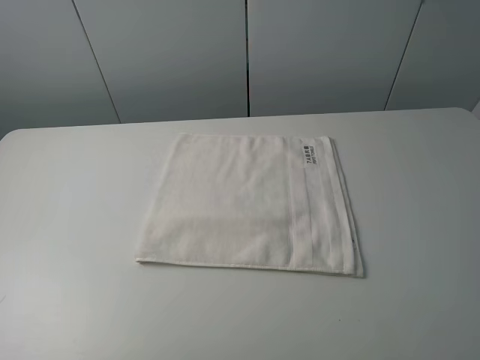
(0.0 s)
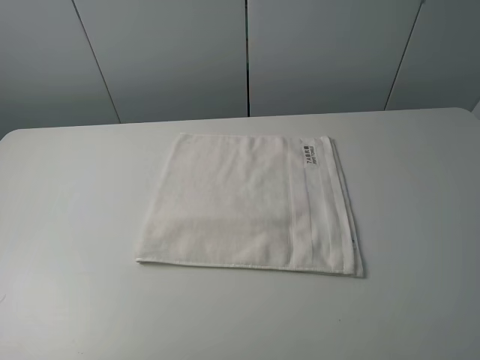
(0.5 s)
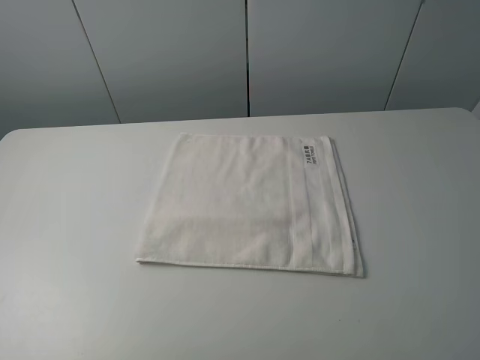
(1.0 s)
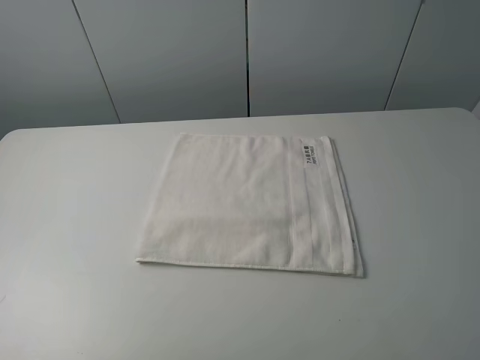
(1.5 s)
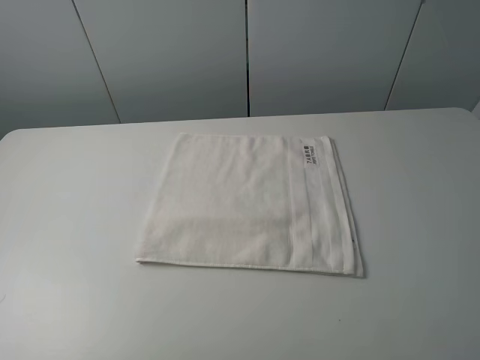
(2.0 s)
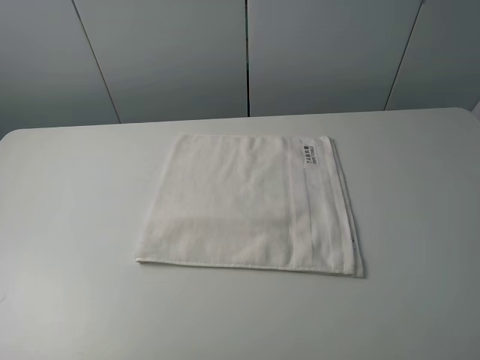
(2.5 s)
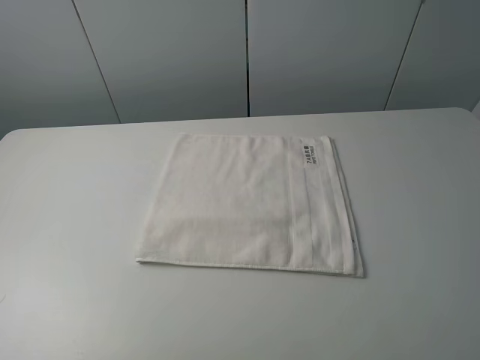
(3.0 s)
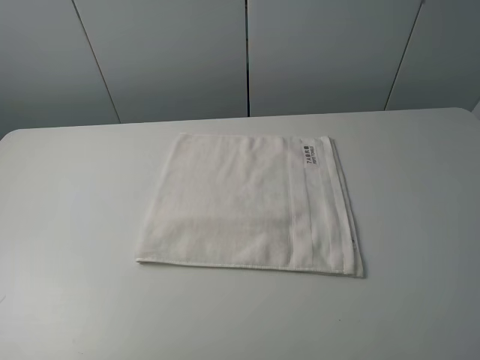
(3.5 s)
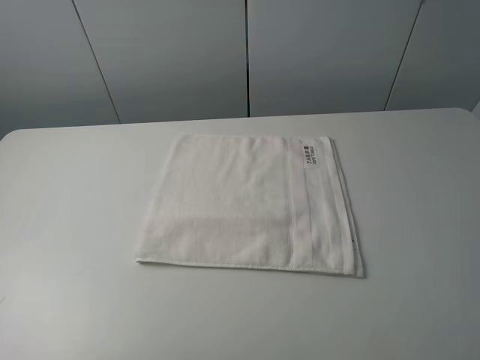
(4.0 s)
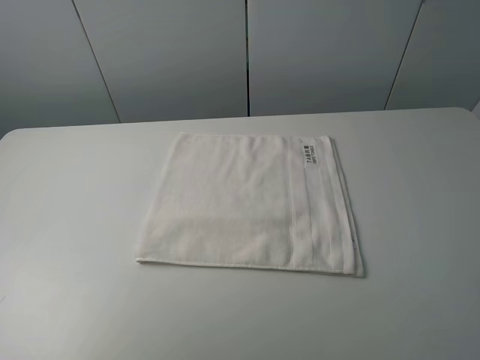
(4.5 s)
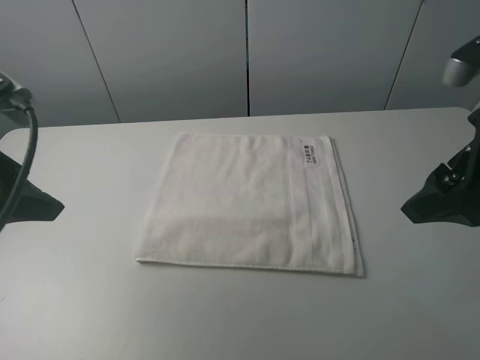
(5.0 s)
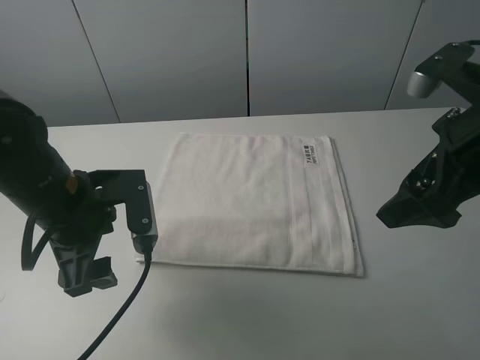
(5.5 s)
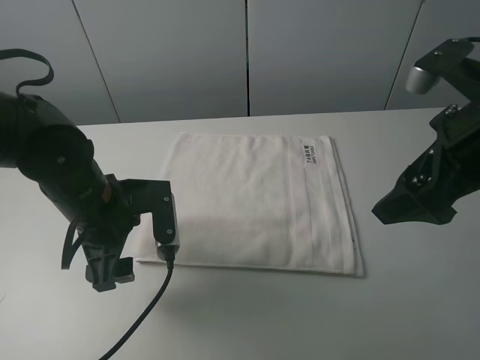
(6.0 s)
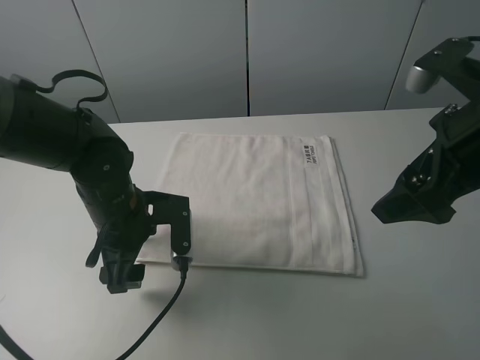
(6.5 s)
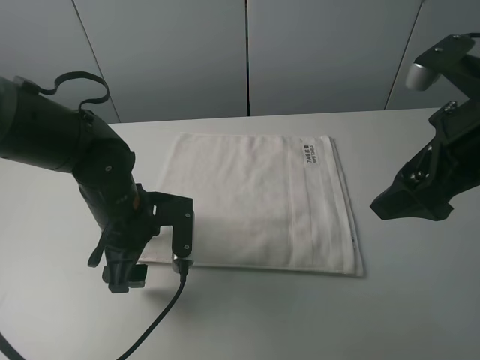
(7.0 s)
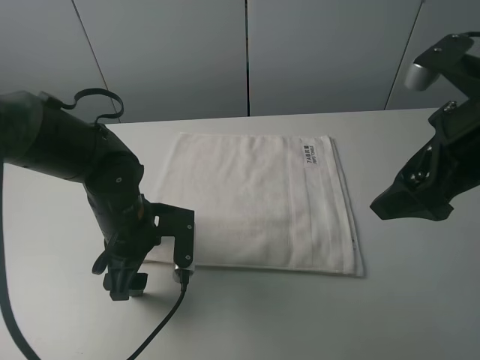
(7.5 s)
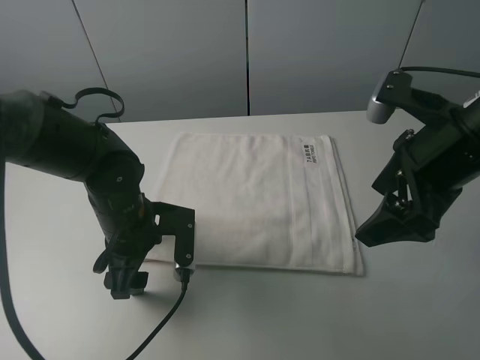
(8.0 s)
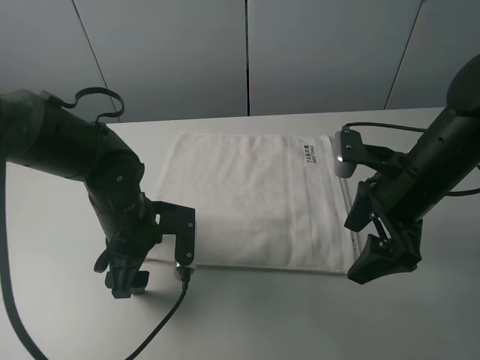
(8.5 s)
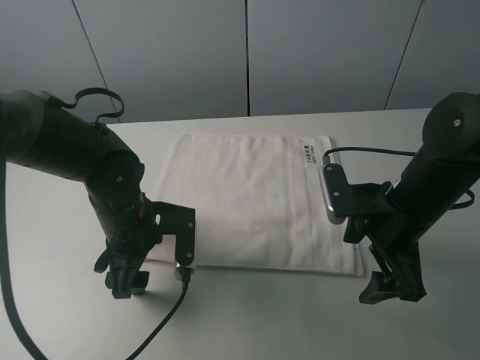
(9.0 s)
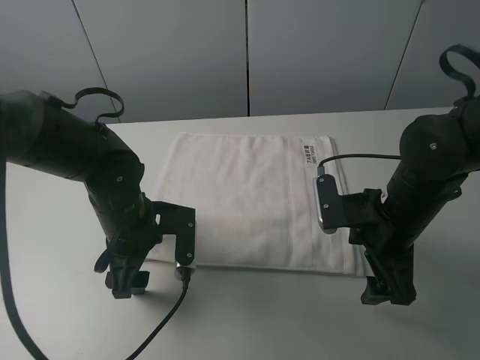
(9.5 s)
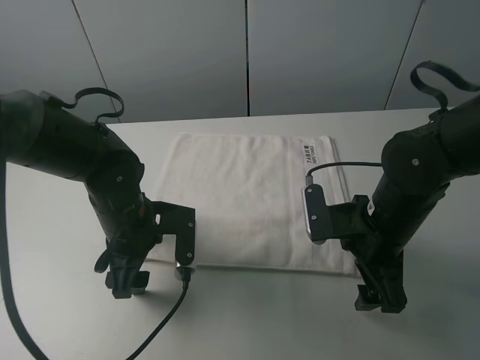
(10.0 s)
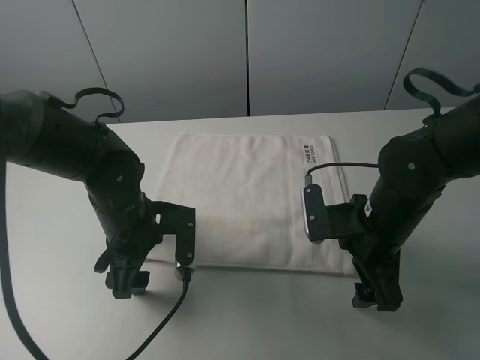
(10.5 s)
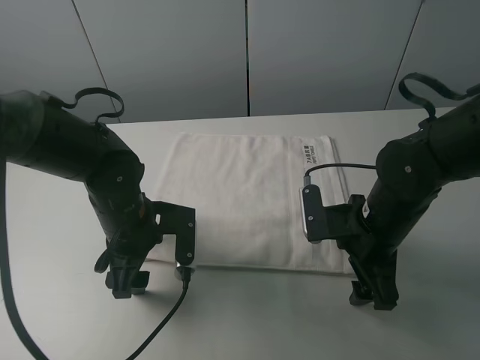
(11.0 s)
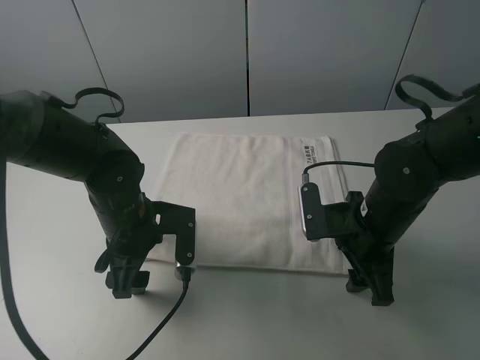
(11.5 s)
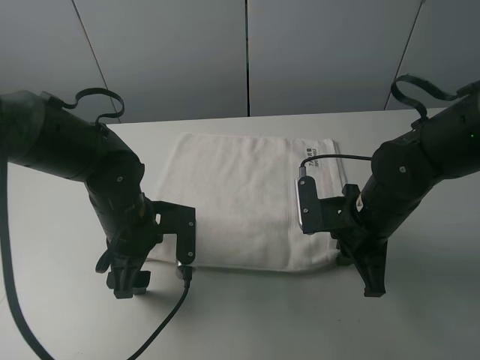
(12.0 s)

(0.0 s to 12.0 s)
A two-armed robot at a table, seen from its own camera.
Task of the whole recording: fold the towels on the table.
Step, 0.0 s - 12.0 s: Grasp the white towel with the right gripper.
0.0 s - 2.0 s: Both grippers stay put.
4.0 s - 6.0 s: The right gripper goes about 20 cm forward. The left gripper moves forward, to the right and downward, roughly 30 cm.
6.0 s - 8.0 s: The left gripper ends up some 5 cm from where it was.
8.0 s - 10.0 s: The right gripper goes roughly 10 cm downward.
10.0 s - 12.0 s: The right gripper closes.

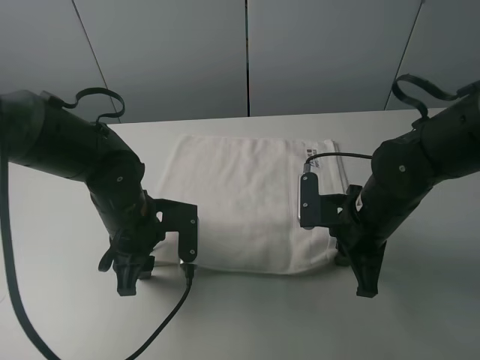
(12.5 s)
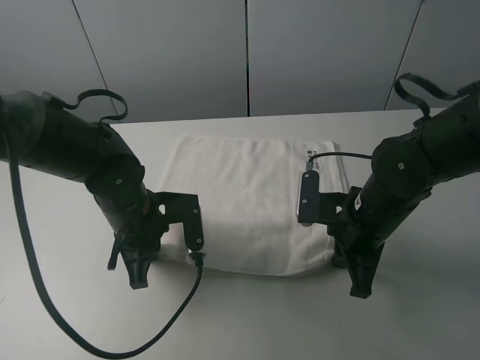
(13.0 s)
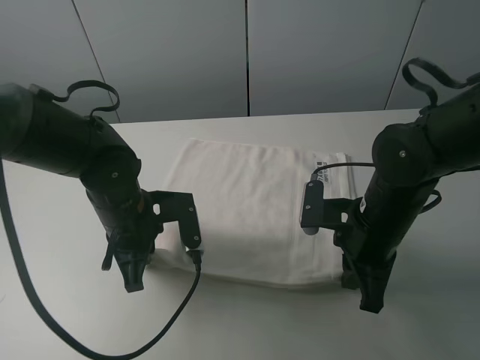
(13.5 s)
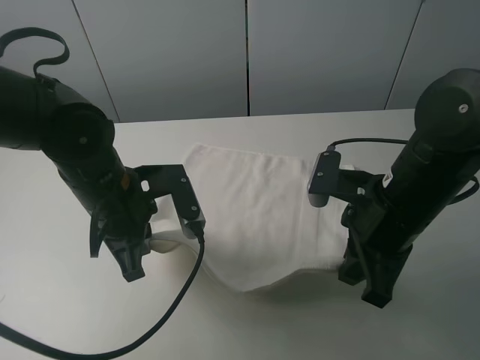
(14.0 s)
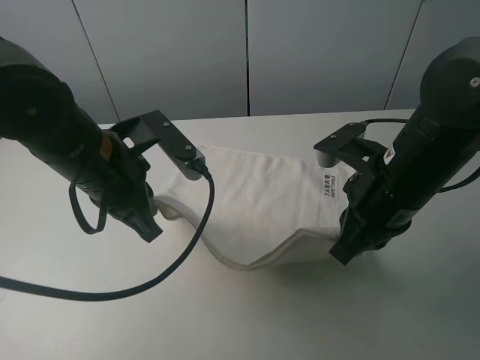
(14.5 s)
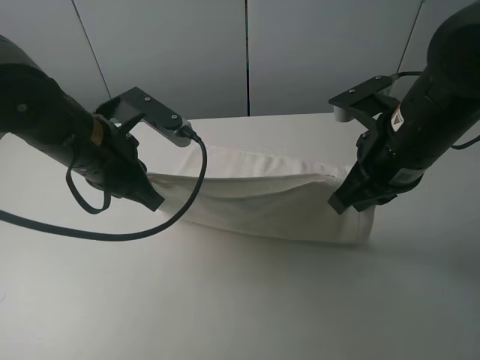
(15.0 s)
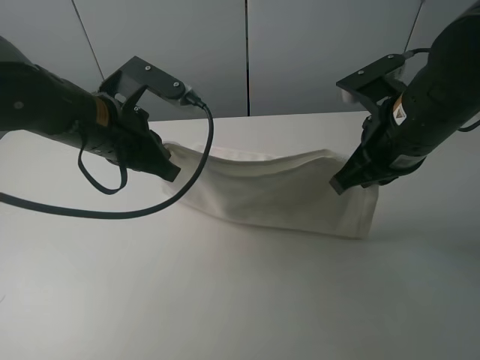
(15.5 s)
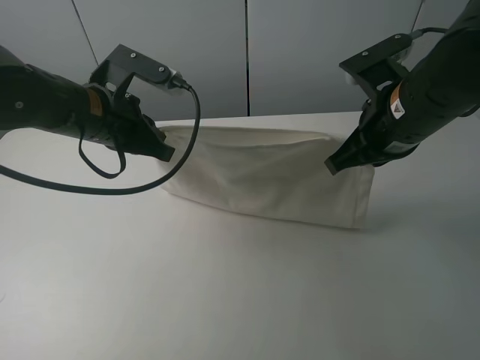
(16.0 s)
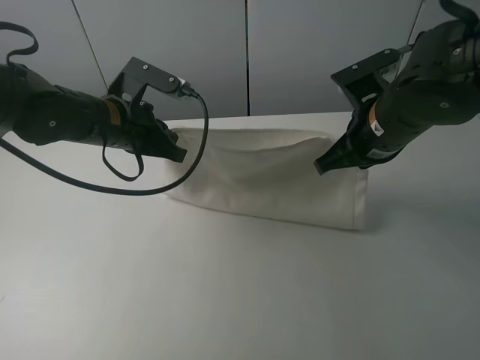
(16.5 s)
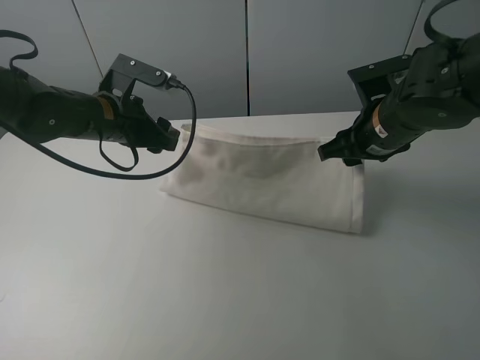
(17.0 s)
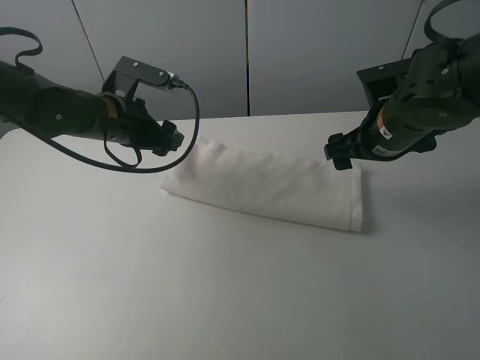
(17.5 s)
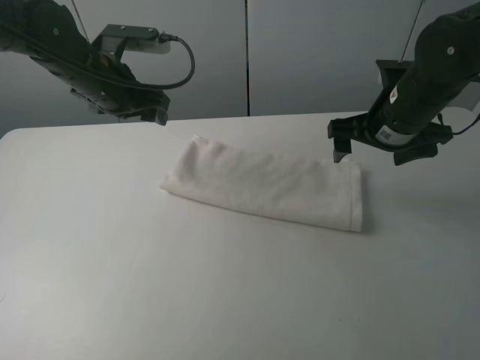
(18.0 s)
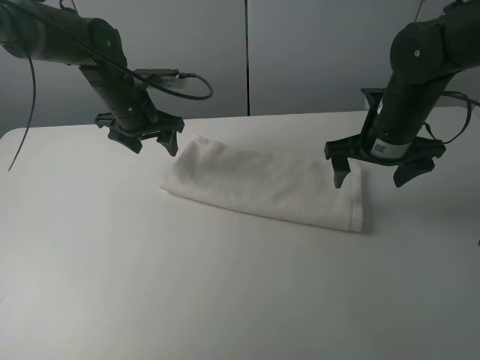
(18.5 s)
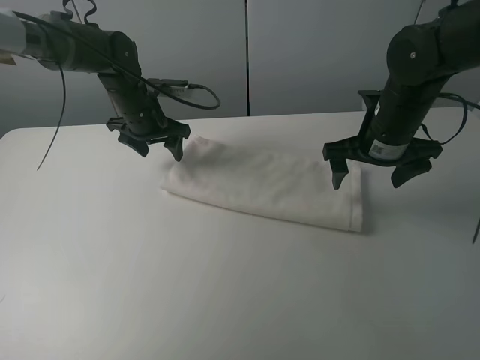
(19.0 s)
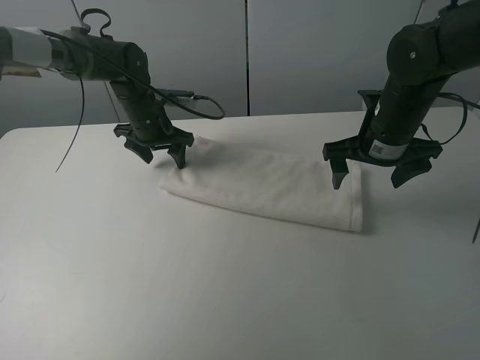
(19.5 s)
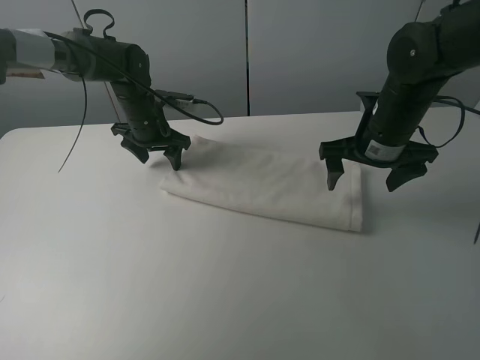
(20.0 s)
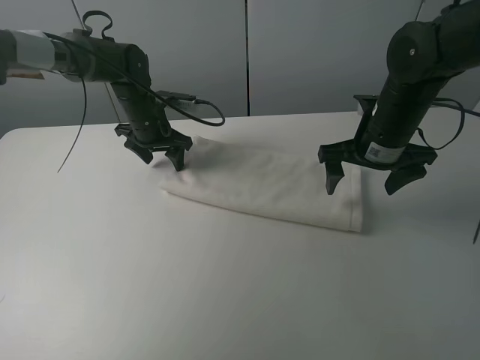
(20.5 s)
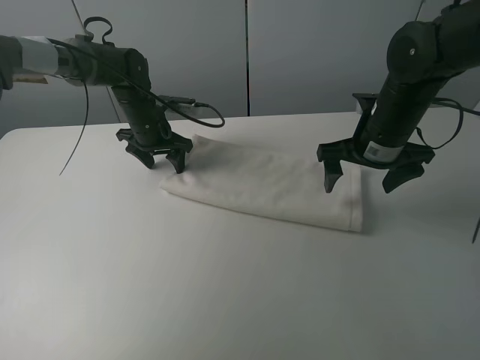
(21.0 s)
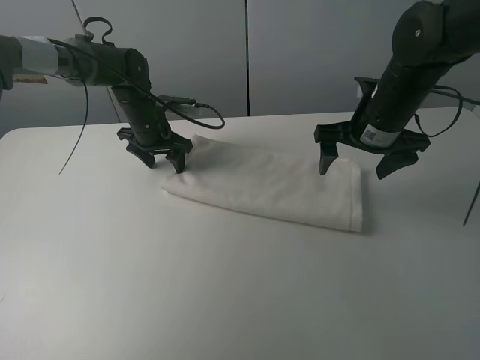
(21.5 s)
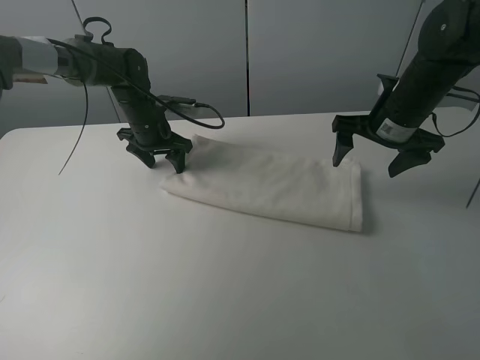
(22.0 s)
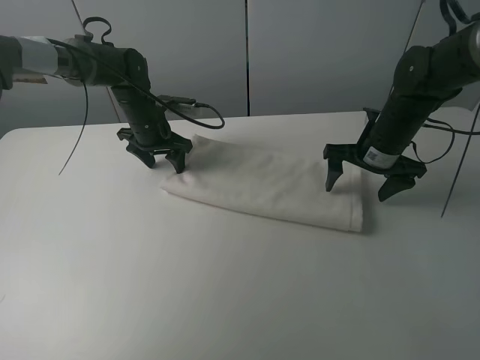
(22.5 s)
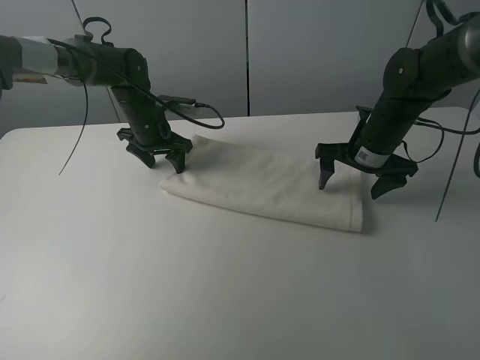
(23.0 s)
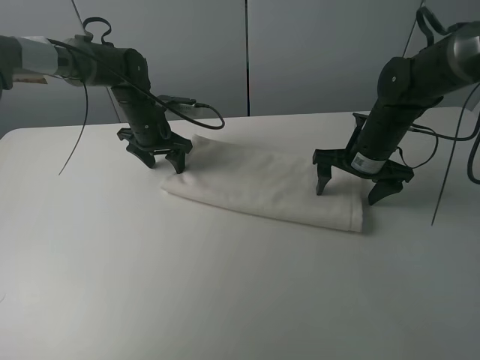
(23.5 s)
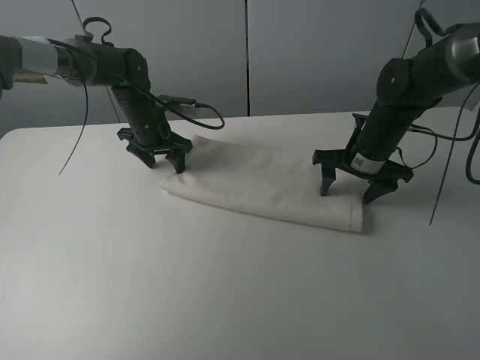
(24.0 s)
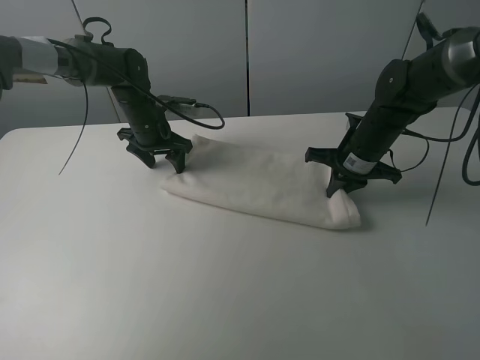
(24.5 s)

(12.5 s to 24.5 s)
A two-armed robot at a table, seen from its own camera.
Task of the whole recording: fold the towels on the table.
Step, 13.0 s - 17.0 s: Fold the white towel upwards with the right gripper.
Step, 17.5 s - 20.5 s: Press on the white towel with the left gripper.
12.5 s - 14.5 s: The two grippers go approximately 10 cm upward. The left gripper closes.
14.5 s - 16.5 s: The two grippers go about 10 cm forward.
16.5 s - 18.5 s: The left gripper heads forward, covering roughly 10 cm, and opens up. Meanwhile the right gripper moves roughly 5 cm, and opens up.
18.5 s - 20.5 s: The left gripper travels downward by approximately 5 cm.
20.5 s - 22.5 s: The right gripper moves some 5 cm.
22.5 s - 24.5 s: The right gripper closes its fingers.

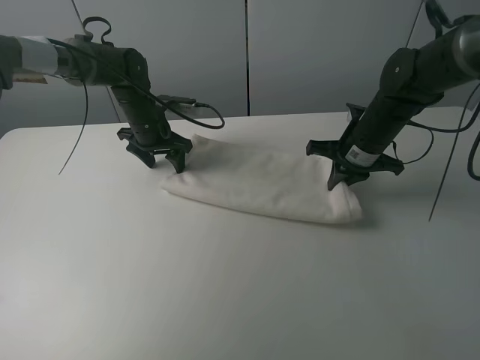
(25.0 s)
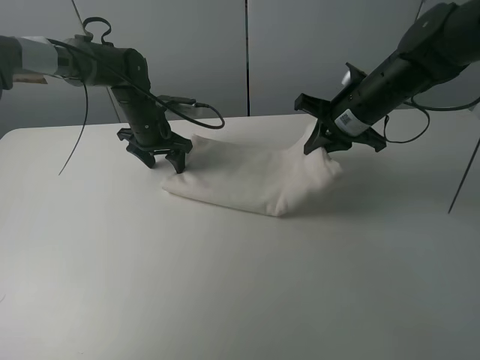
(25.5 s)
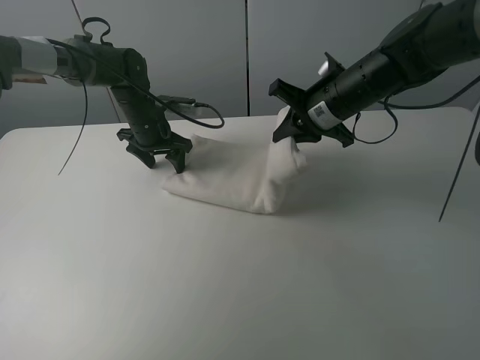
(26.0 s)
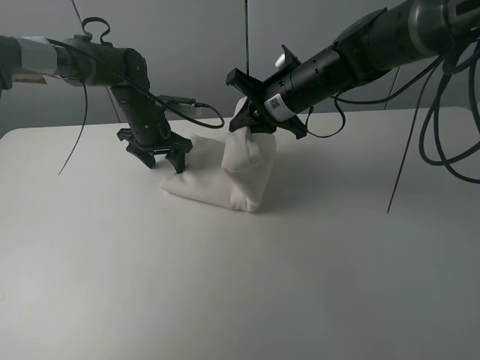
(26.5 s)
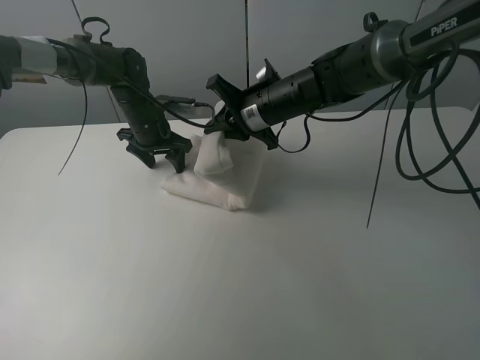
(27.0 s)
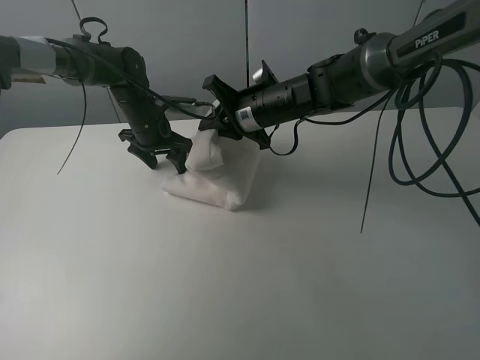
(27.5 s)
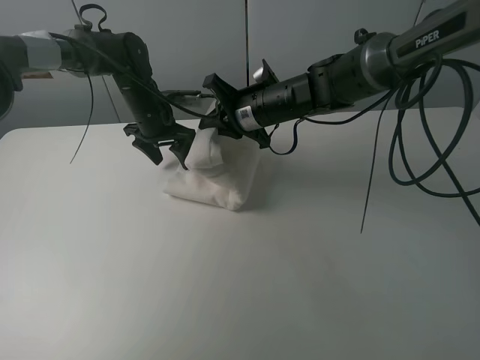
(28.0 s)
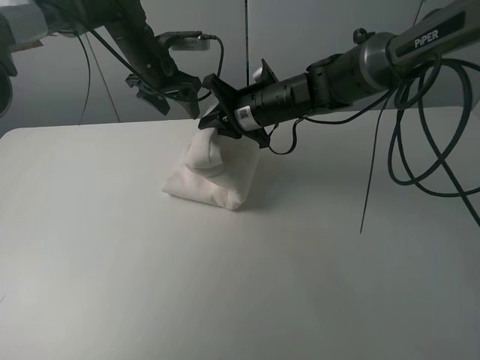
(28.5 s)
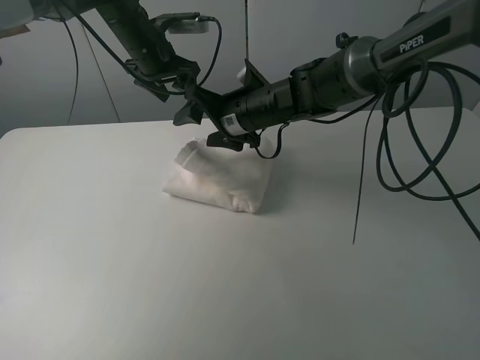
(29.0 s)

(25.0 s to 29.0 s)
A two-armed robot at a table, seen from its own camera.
Task of the whole recording: fold the towels on the table.
25.0 s - 27.0 s: The right gripper goes about 15 cm to the left.
27.0 s - 29.0 s: The right gripper opens up. Meanwhile the left gripper shifts roughly 15 cm upward.
